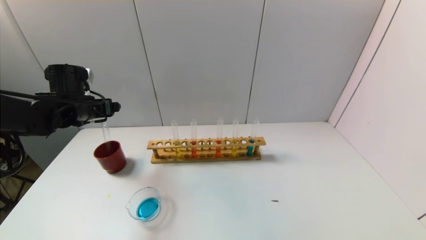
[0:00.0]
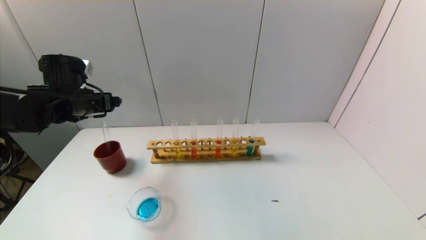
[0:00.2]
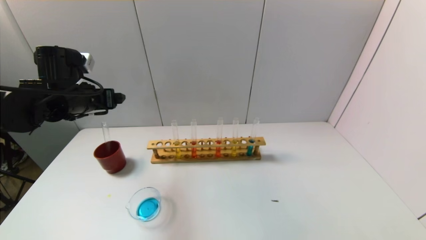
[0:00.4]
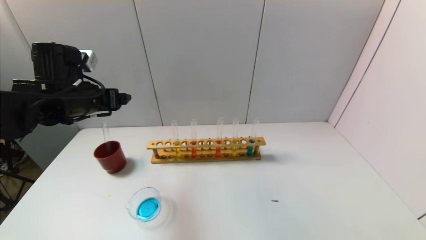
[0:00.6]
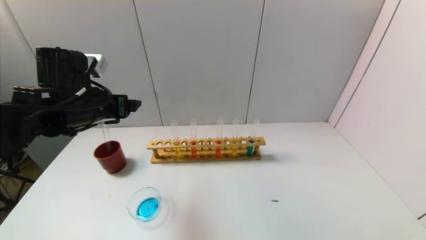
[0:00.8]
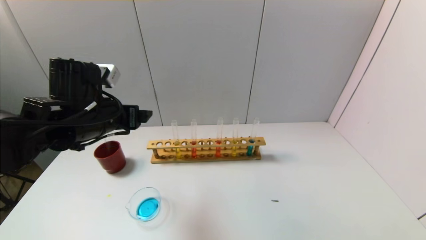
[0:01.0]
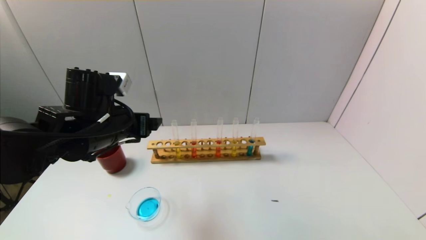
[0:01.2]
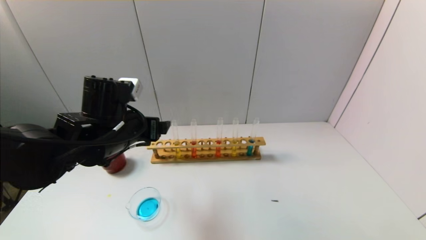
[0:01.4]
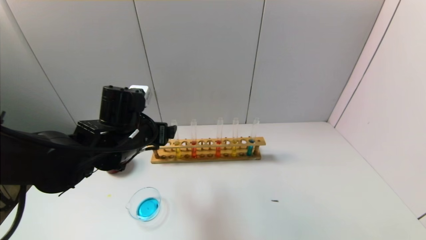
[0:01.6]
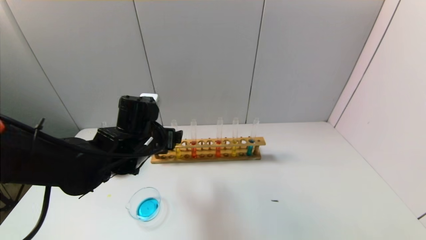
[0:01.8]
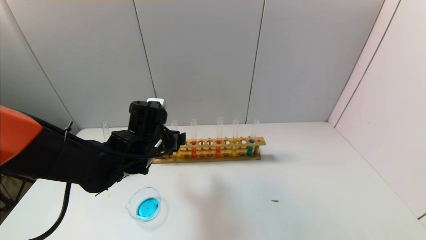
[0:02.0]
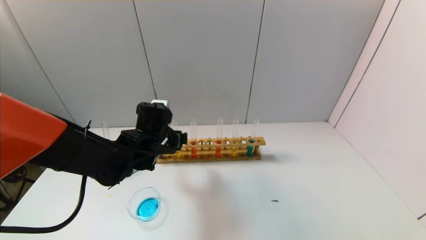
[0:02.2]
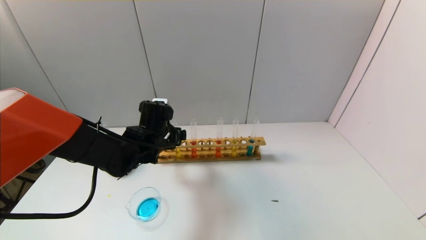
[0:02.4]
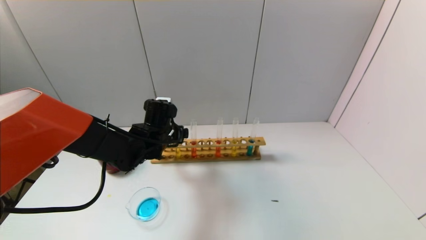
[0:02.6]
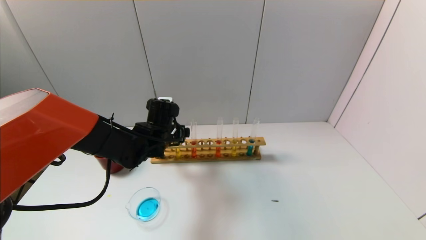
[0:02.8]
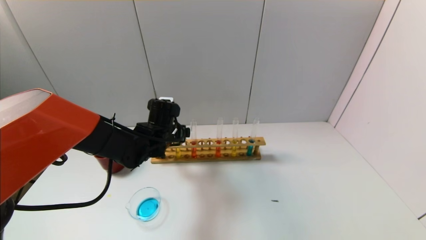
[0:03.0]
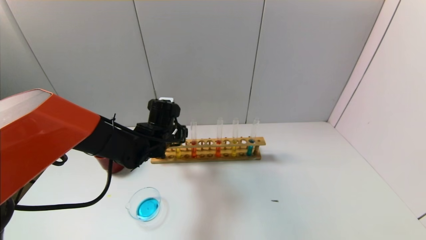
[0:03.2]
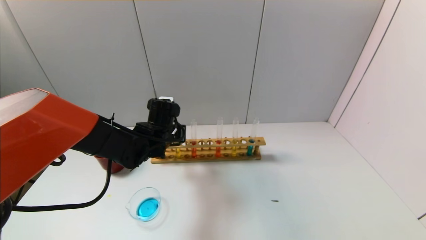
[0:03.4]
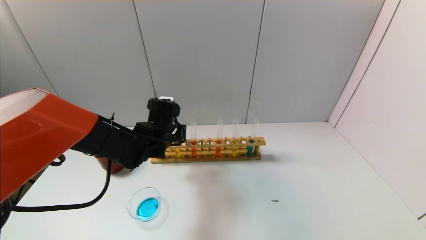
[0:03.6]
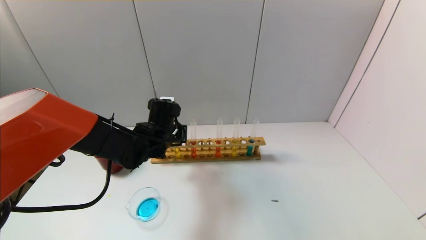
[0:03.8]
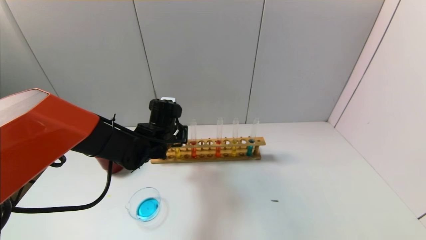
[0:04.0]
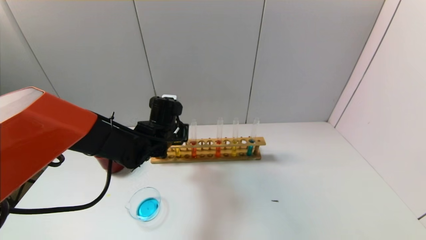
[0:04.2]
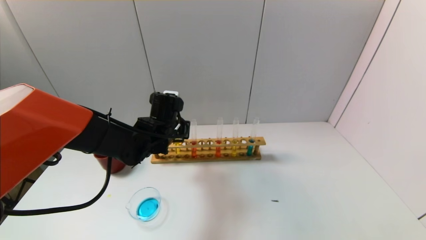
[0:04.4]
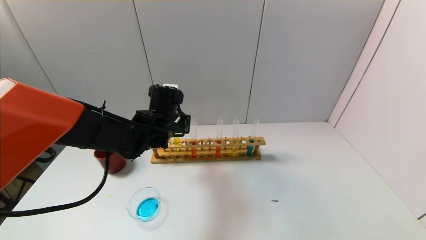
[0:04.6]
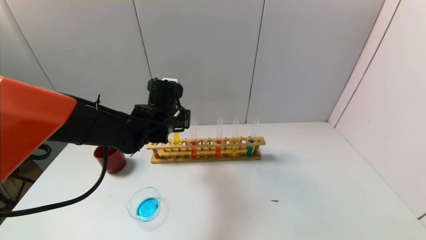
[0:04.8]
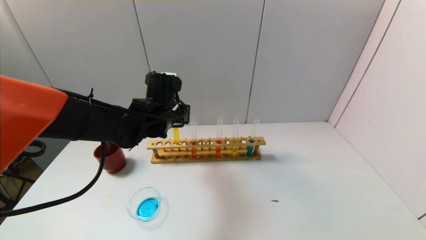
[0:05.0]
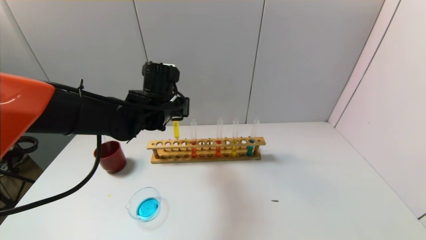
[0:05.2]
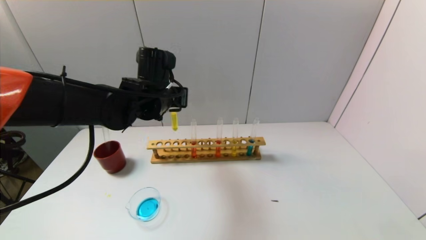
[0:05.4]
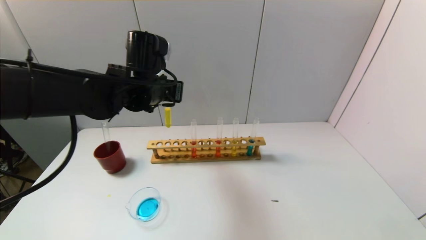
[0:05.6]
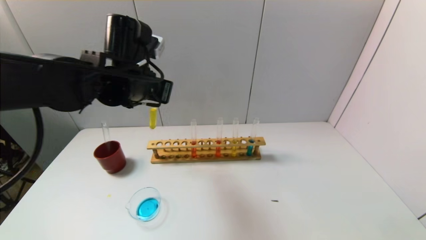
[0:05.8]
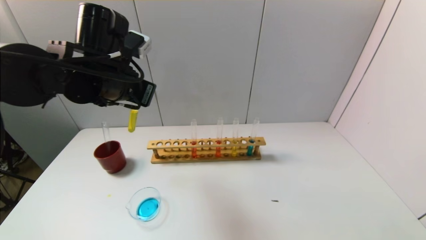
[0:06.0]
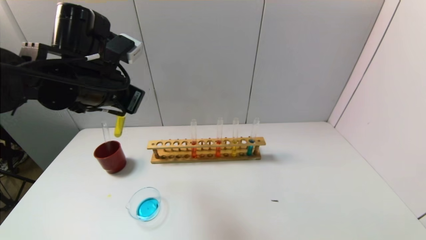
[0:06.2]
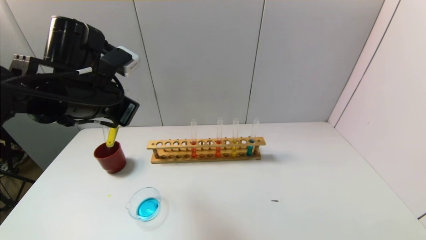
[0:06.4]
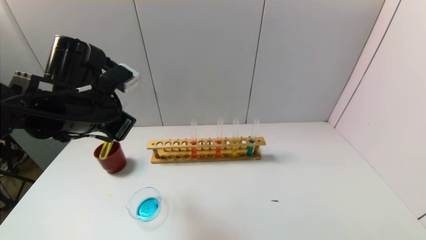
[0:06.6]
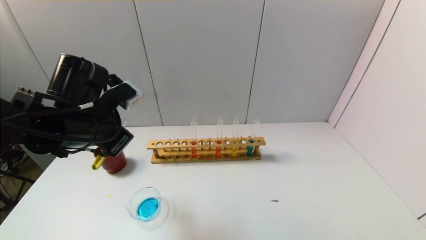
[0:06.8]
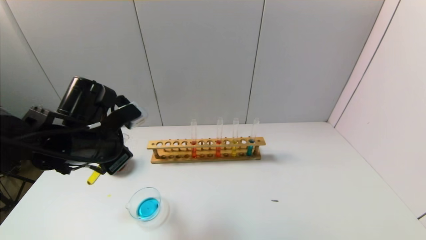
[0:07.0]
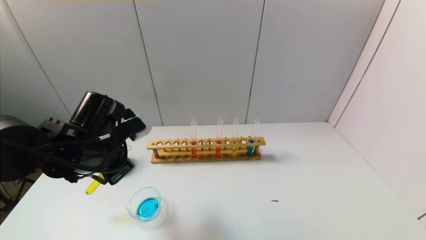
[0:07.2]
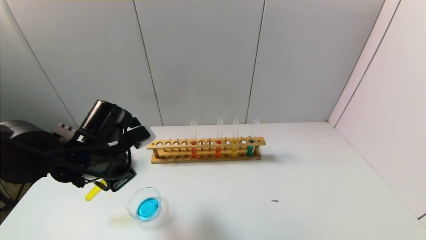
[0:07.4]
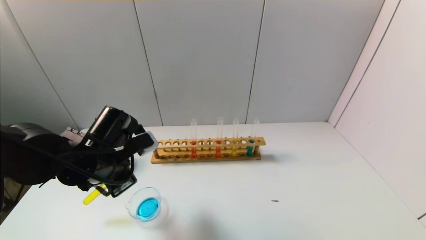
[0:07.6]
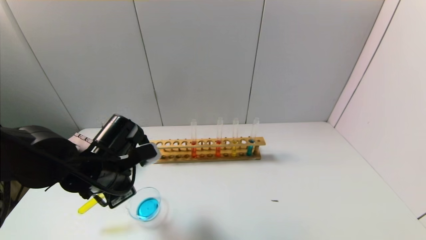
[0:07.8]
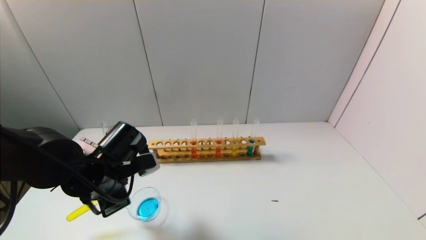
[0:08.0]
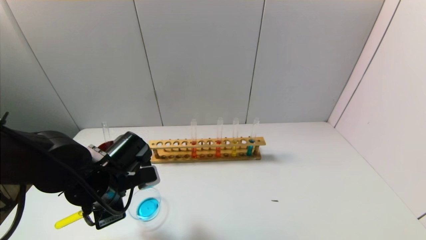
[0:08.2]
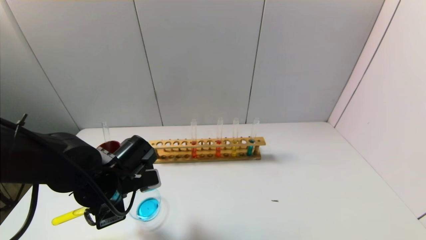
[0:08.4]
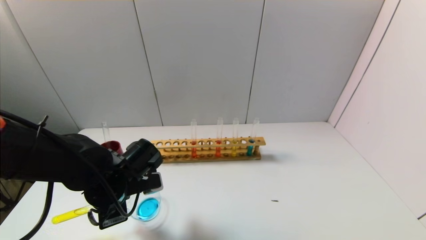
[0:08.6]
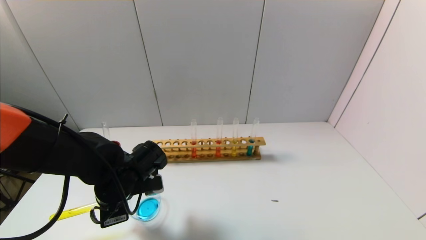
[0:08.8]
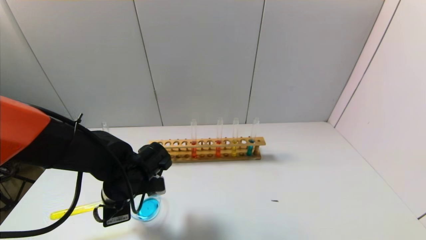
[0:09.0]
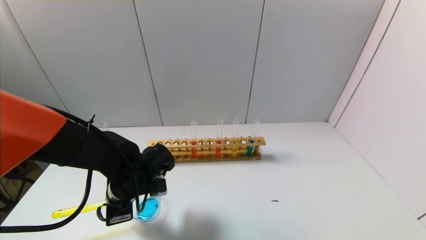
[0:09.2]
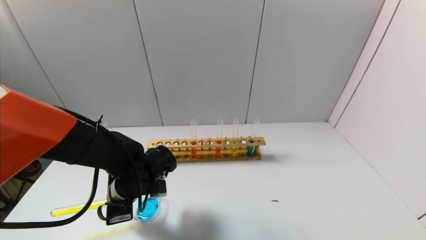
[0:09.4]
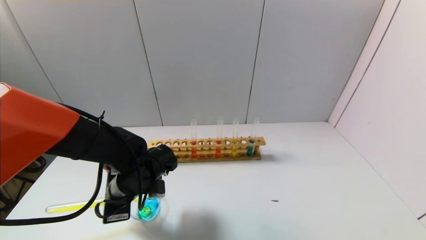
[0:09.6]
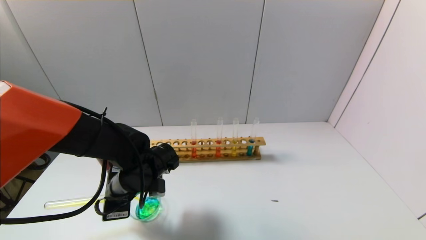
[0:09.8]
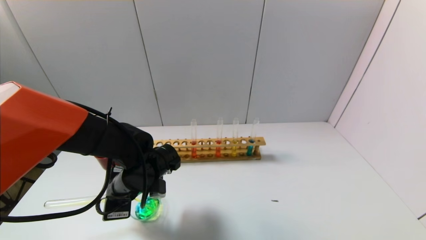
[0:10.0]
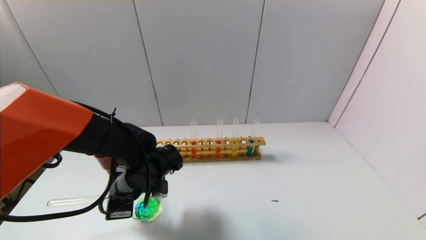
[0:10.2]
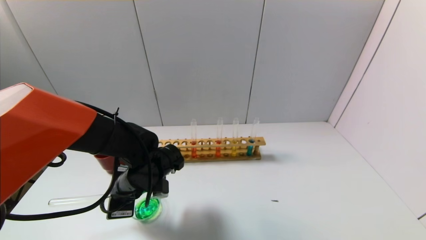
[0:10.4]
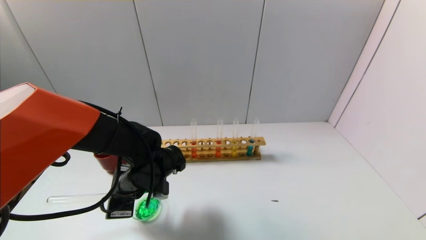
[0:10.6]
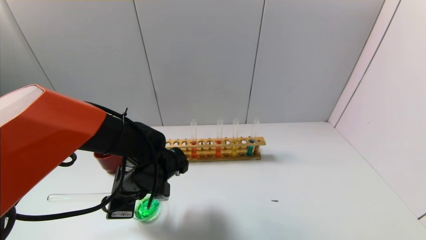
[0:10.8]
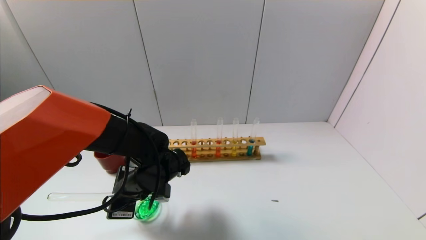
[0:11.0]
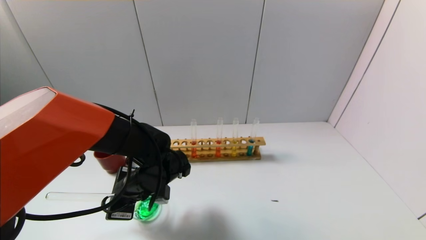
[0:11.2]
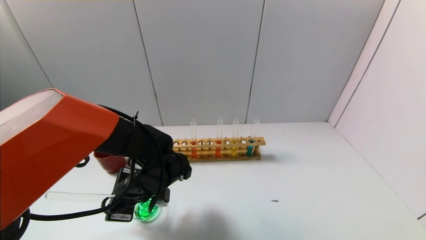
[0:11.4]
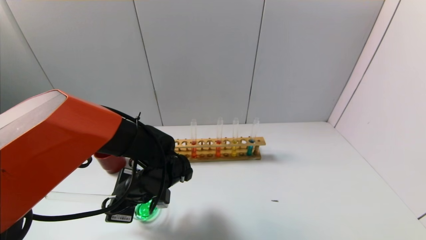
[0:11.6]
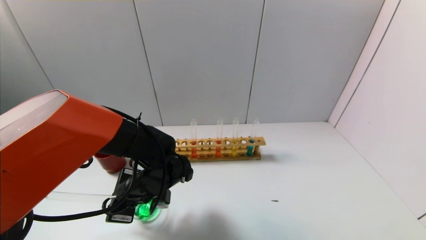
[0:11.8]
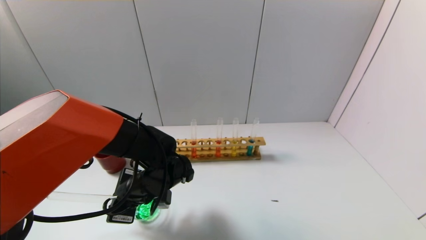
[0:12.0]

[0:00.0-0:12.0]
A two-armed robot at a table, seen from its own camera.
Task of the whole recording: pick up the test tube with yellow pigment and the test tube with blue pigment by grippers and pour them into the beaker.
Step, 0:00.0 to 0:04.0: Grasp the yellow reagent with the left gripper.
0:00.0 to 0:01.6: The left gripper travels to the right and backward by about 15 cm.
0:01.6 to 0:03.0: The left gripper moves forward and downward, some 10 cm.
0:03.0 to 0:04.4: The left gripper closes its fingers.
0:04.4 to 0:06.0: The left gripper shifts approximately 15 cm upward and backward.
0:06.0 to 0:07.6: The left gripper shifts approximately 15 cm downward.
0:07.6 to 0:09.0: The left gripper heads downward, covering some 5 cm.
0:09.0 to 0:10.4: The grippers make only small movements.
0:10.4 to 0:12.0: The grippers make only small movements.

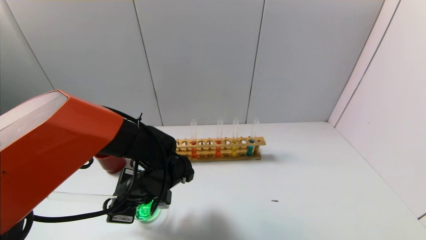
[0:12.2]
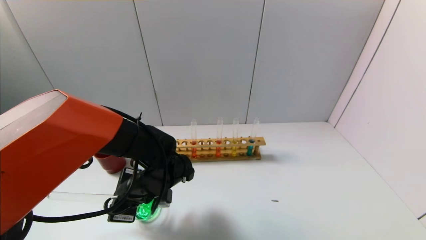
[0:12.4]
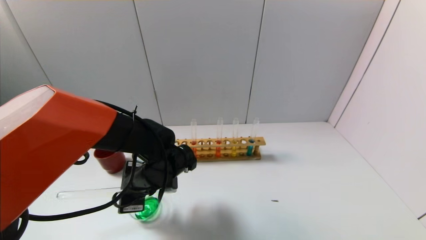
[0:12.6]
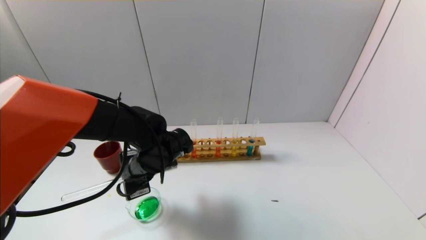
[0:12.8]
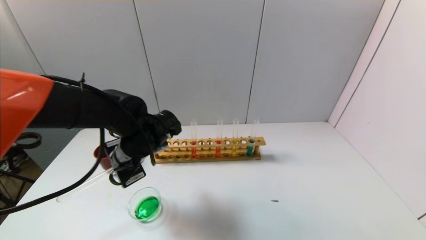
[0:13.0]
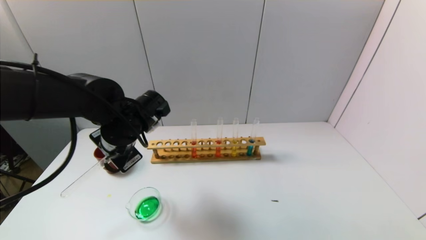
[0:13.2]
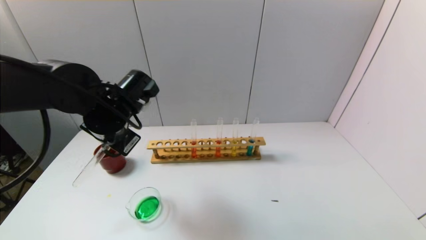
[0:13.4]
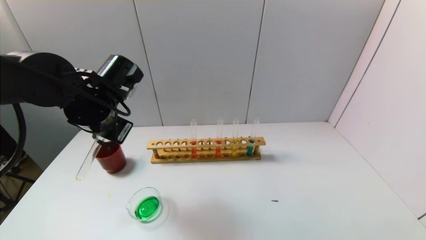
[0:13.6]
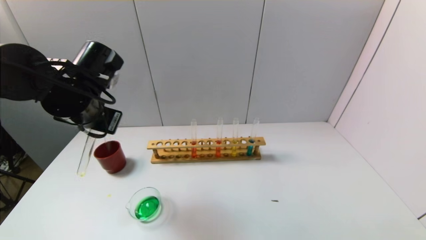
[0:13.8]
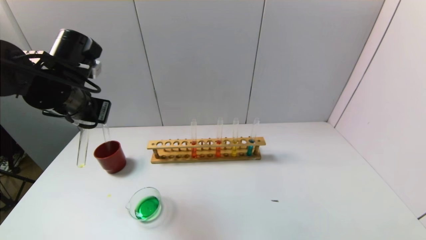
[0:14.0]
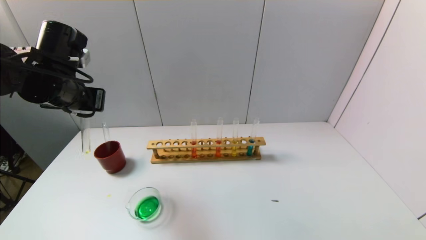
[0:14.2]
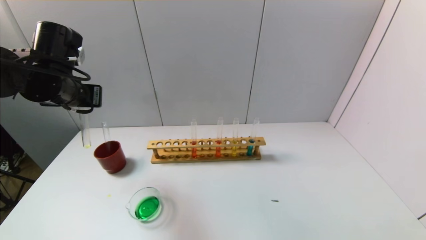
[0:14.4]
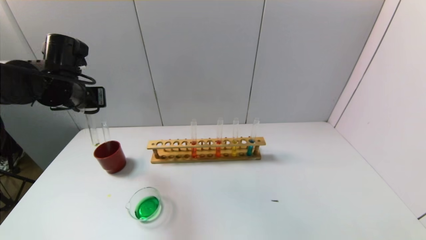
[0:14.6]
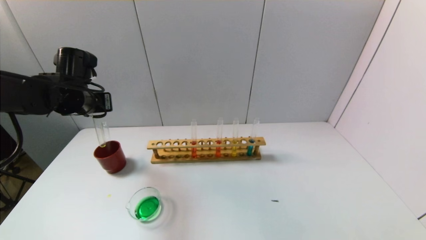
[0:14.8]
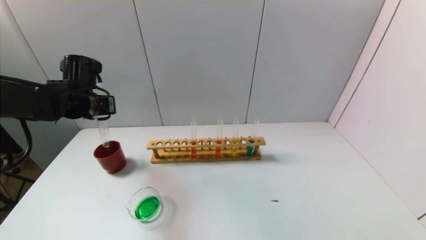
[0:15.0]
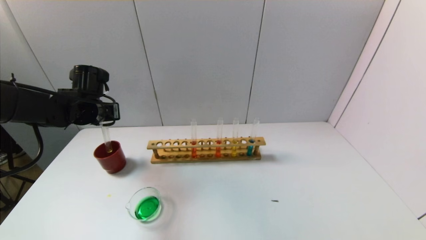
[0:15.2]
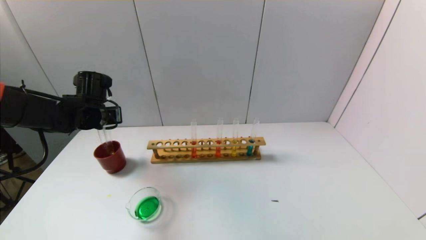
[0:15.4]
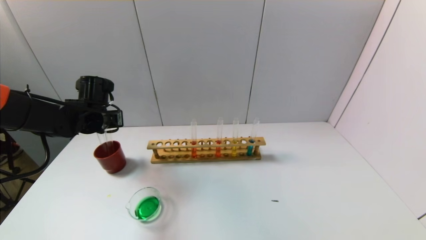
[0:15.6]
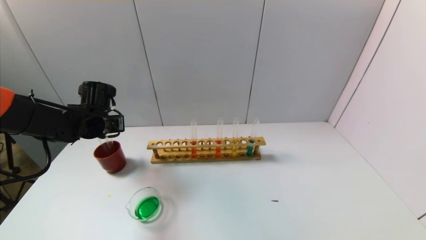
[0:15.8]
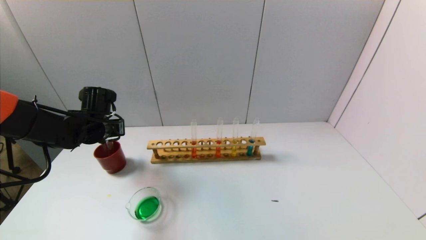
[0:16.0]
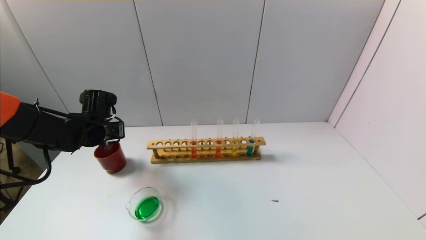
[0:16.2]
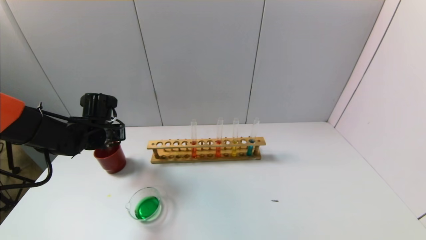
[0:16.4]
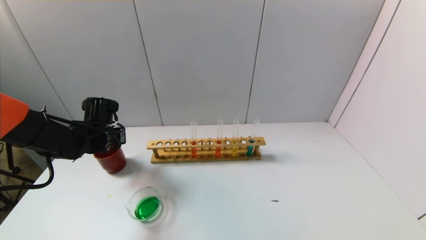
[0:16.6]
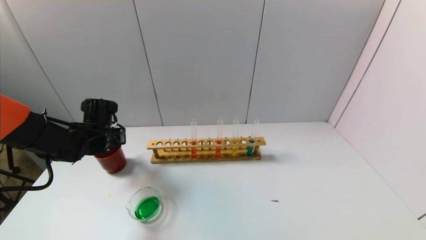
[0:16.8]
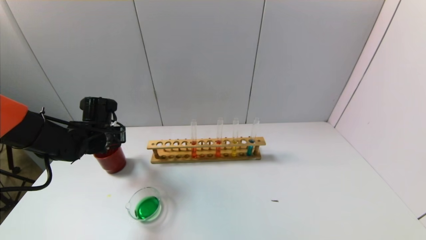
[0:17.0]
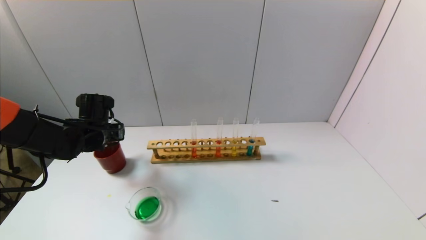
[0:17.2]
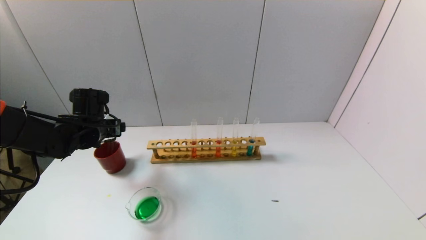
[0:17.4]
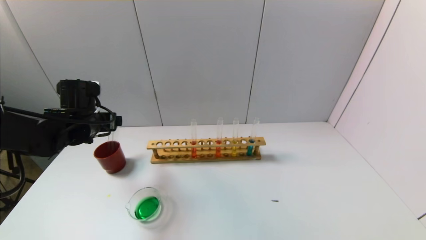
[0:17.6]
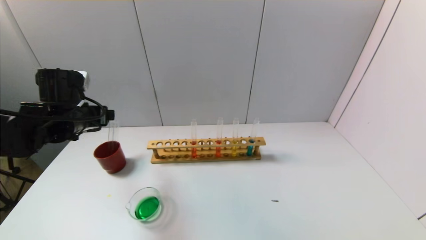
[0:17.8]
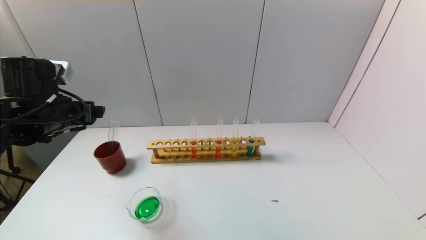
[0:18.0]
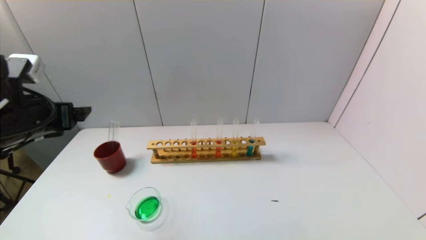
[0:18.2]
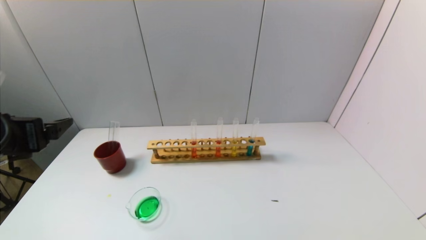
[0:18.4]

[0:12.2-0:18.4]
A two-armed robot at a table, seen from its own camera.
Task of the whole recording: pick up the test tube with yellow pigment and the test tube with blue pigment by grippers and pour them into the beaker.
Step, 0:13.0 to 0:17.0: Place the test tube into the brown cup with the left gripper.
0:12.2 to 0:13.8: The left gripper travels upward and to the left by about 20 cm.
0:13.8 to 0:15.4: The left gripper moves forward, downward and to the left, roughly 15 cm.
0:15.4 to 0:16.8: The left gripper shifts about 5 cm downward.
0:16.8 to 0:18.4: The left gripper heads backward and upward, covering some 25 cm, and opens its fingers.
